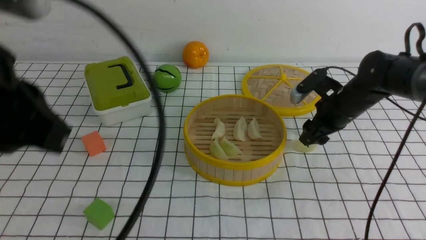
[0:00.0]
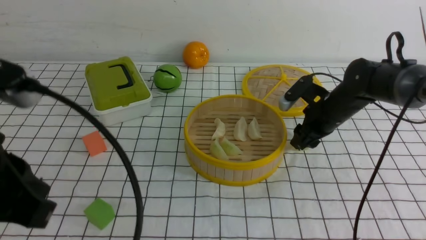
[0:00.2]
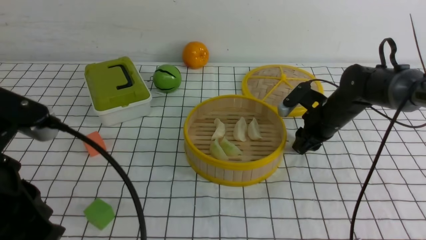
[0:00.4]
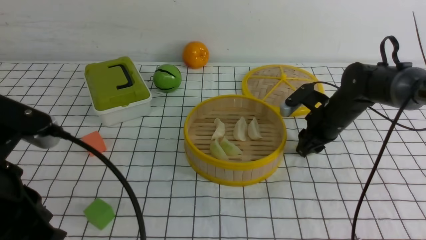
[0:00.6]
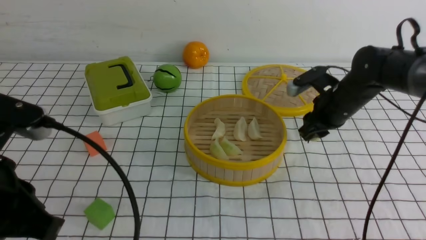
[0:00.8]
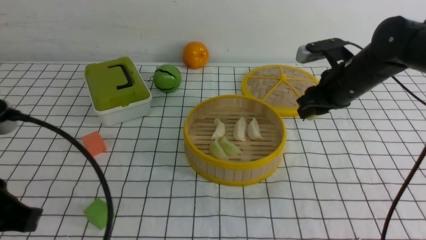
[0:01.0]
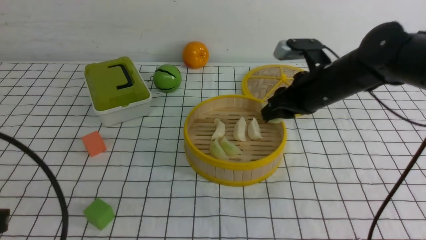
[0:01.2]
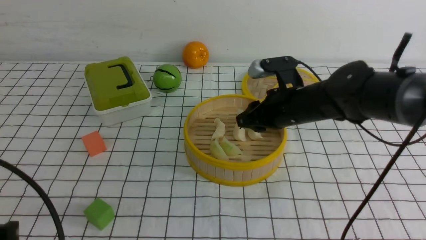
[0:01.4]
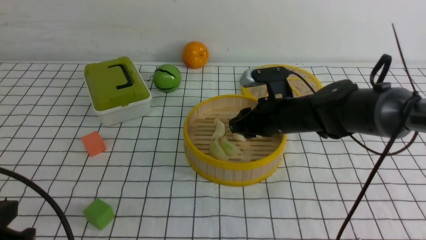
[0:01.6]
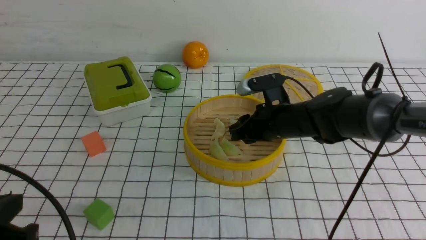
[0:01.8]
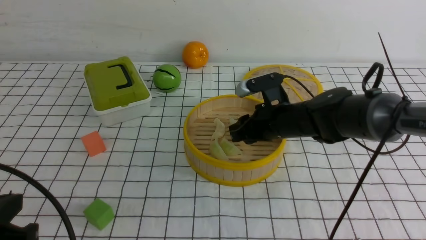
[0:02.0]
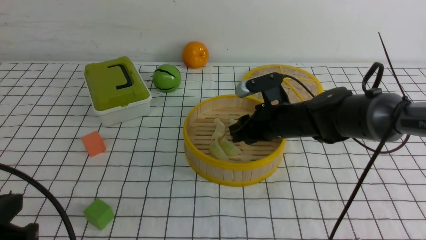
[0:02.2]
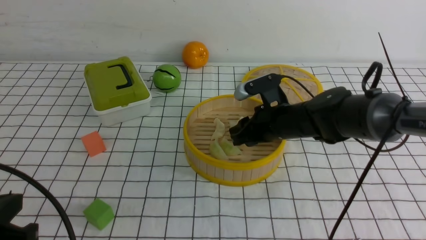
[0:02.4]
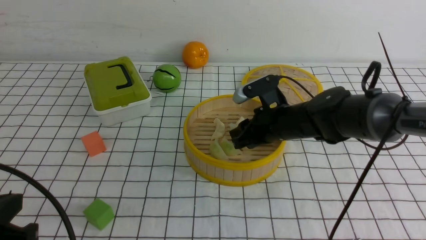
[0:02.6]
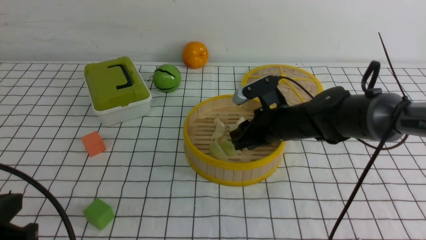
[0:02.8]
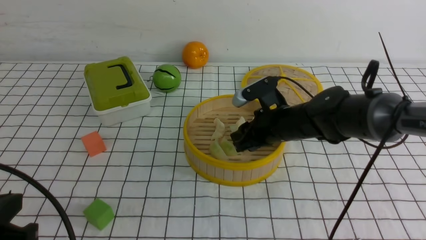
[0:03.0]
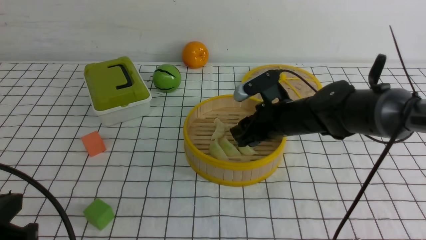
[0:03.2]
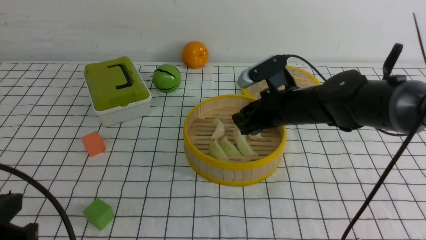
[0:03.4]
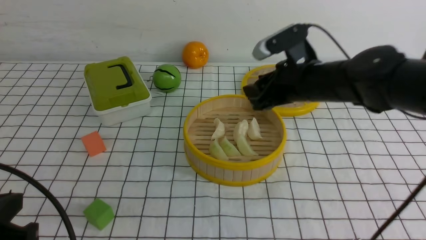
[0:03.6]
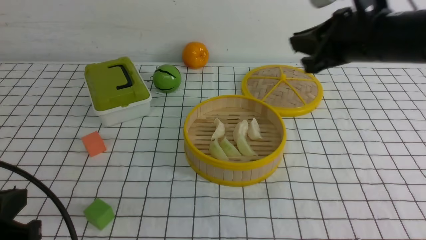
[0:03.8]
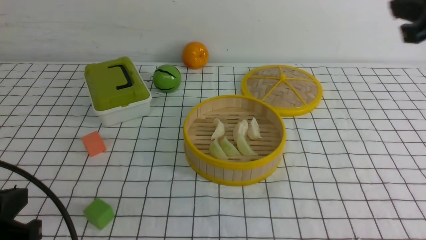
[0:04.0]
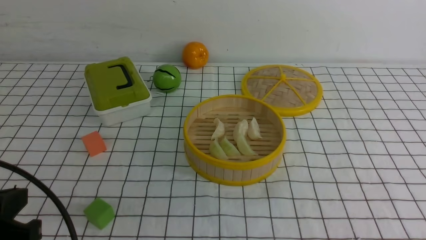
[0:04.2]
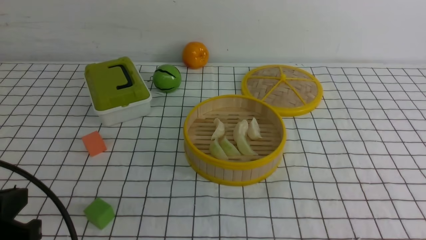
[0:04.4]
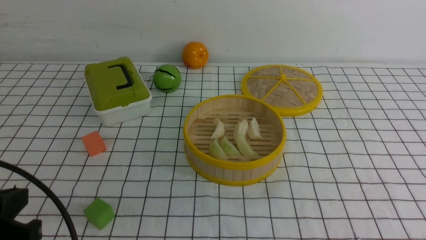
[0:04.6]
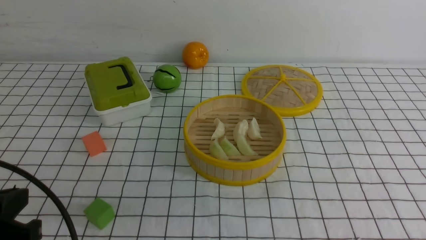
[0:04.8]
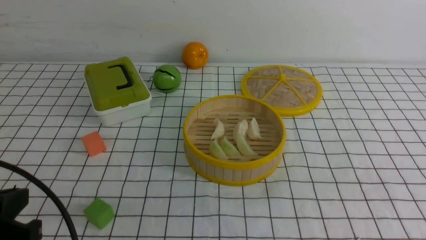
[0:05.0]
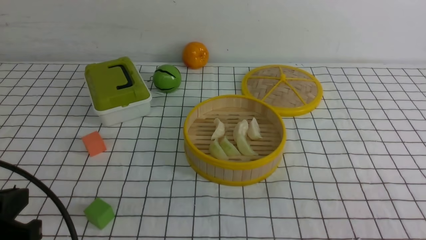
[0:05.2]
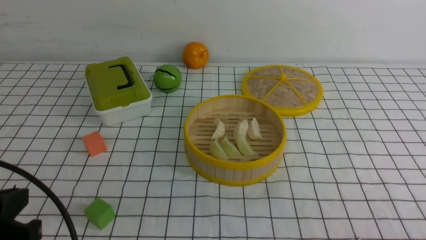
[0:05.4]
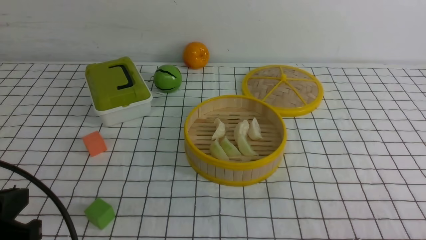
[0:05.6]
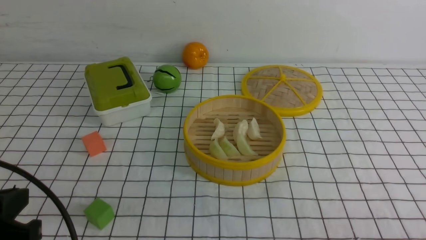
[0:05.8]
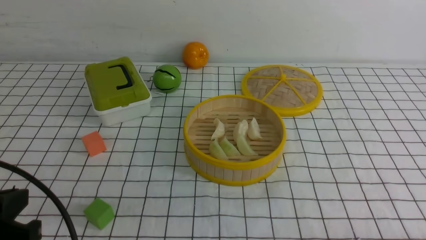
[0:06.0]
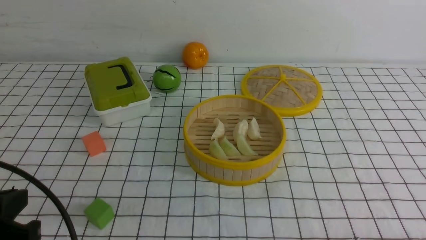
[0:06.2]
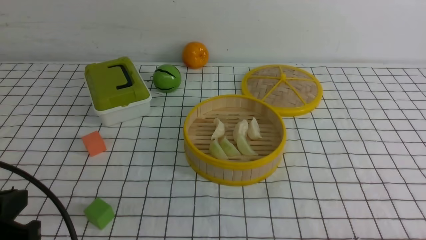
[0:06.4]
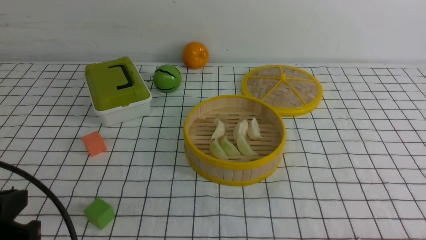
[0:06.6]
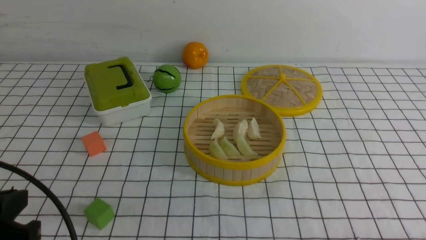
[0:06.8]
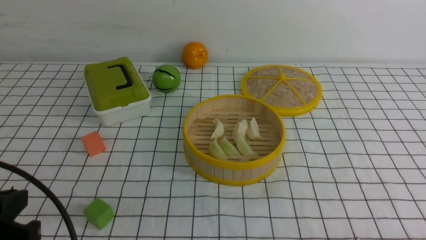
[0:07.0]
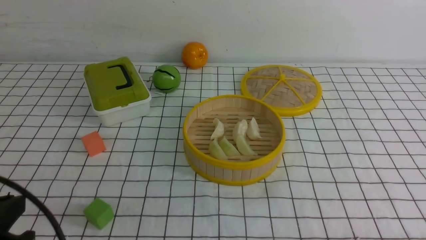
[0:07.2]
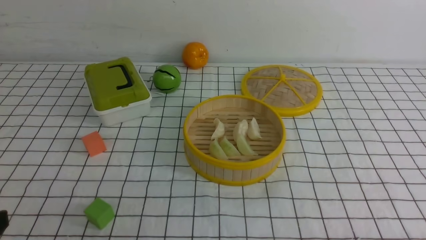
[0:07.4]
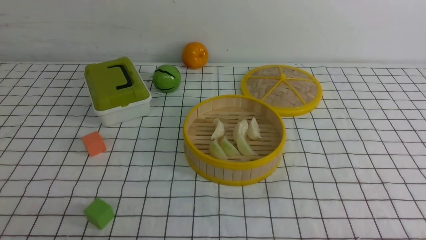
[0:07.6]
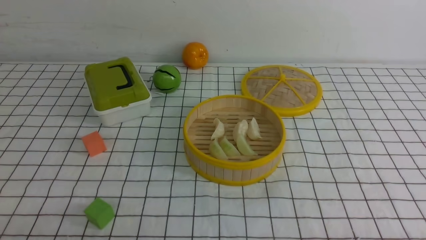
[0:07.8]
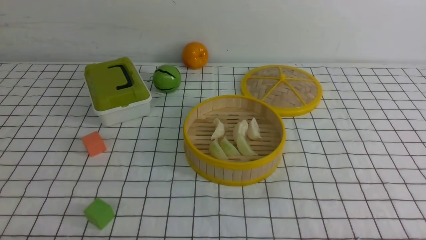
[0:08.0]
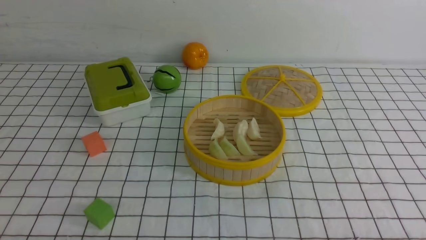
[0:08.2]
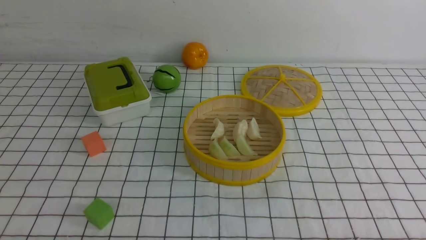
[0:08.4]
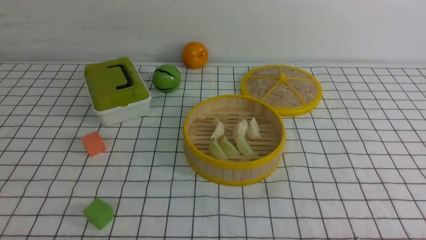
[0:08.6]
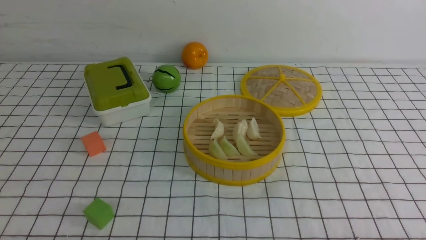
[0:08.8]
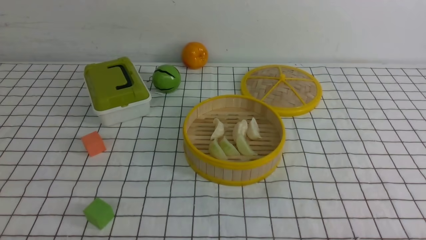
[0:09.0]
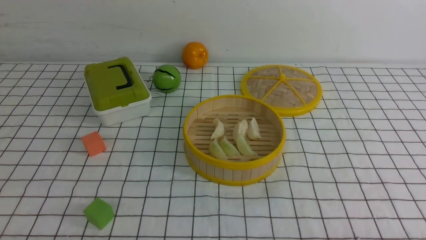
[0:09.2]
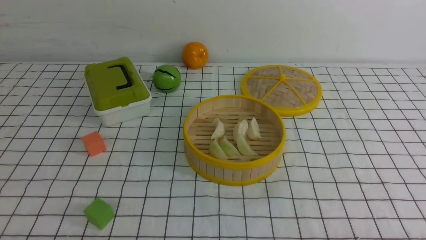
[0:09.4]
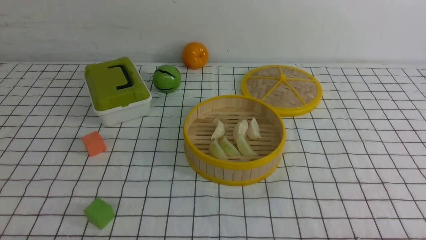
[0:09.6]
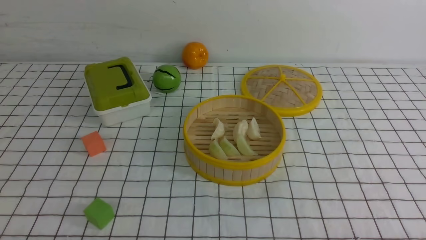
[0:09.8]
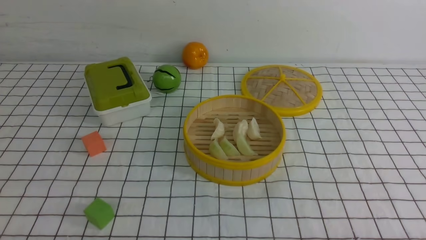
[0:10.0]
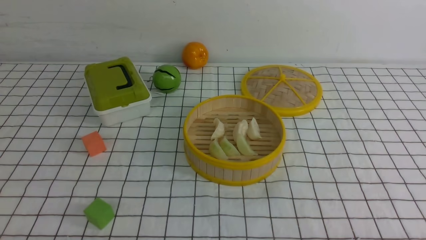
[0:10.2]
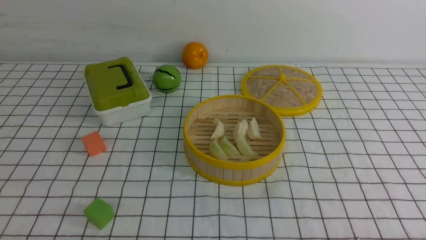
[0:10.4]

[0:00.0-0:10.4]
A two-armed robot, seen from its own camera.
Task of the whole recording: put the dumplings into the steamer on the table with the white tablecloth.
Step, 0:00.8 to 0:03.4: use the right arm to put the dumpling into the steamer.
0:00.0 to 0:01.4: The left gripper goes roughly 15 cm downward, to the left and backward. Meanwhile the right gripper shifts approximately 10 cm to the left, and closes its fingers.
0:01.4 to 0:03.0: There are only small adjustments of the grippers.
0:03.0 to 0:04.4: The right gripper travels upward, to the right and backward by approximately 35 cm, and closes up.
0:06.0 to 0:07.4: The grippers make only small movements.
0:09.0 to 0:10.4: Both grippers stay about where they are.

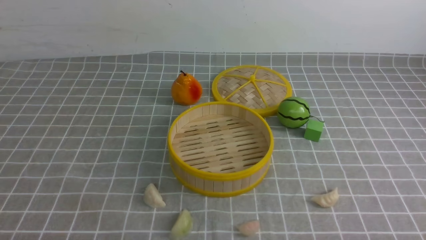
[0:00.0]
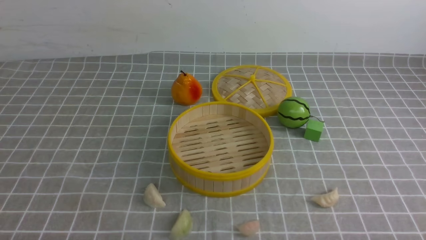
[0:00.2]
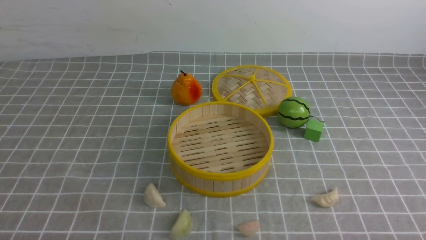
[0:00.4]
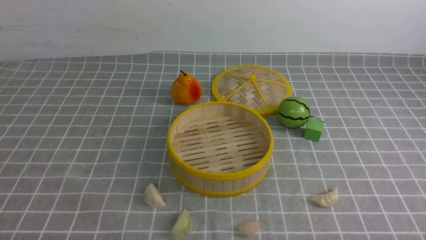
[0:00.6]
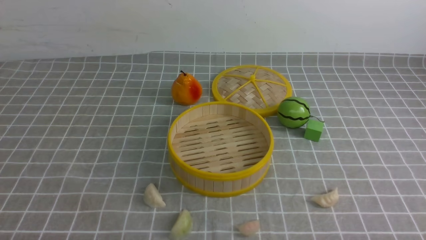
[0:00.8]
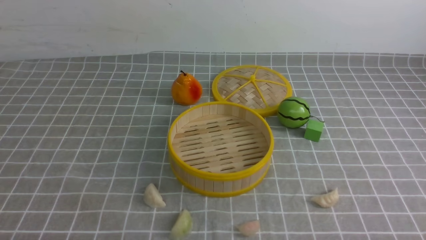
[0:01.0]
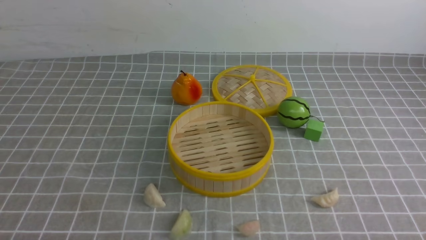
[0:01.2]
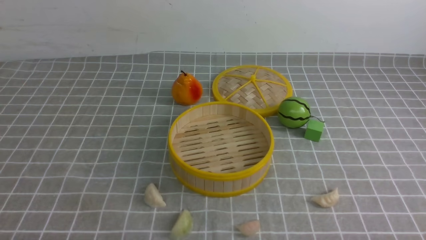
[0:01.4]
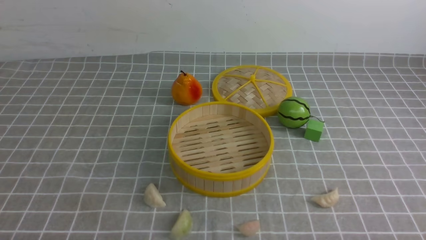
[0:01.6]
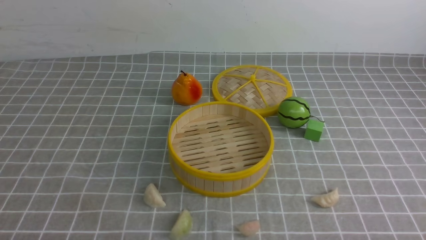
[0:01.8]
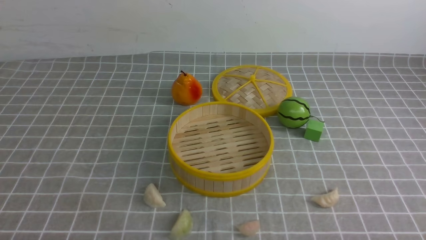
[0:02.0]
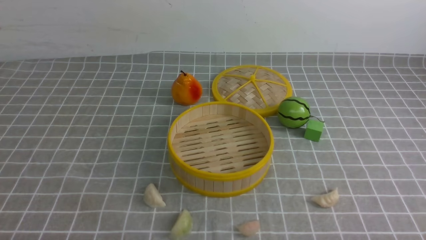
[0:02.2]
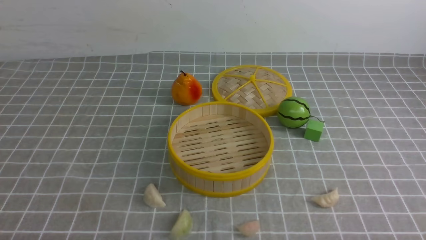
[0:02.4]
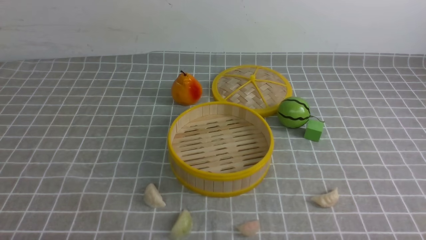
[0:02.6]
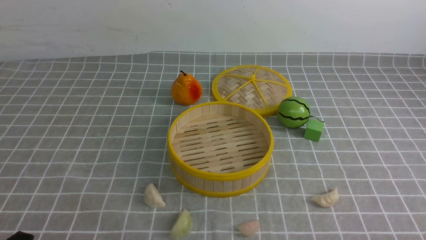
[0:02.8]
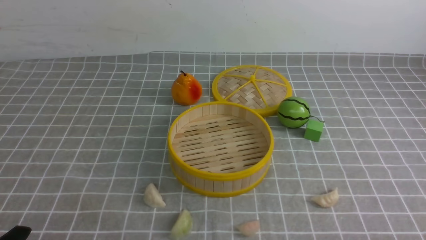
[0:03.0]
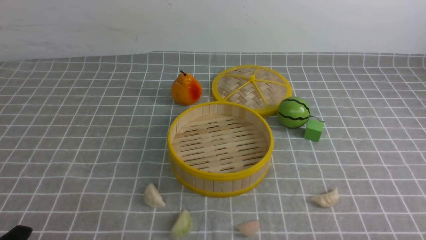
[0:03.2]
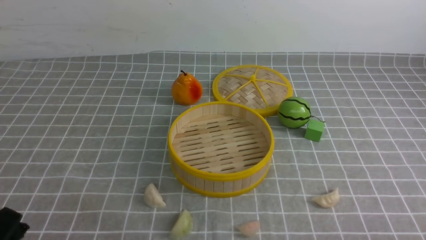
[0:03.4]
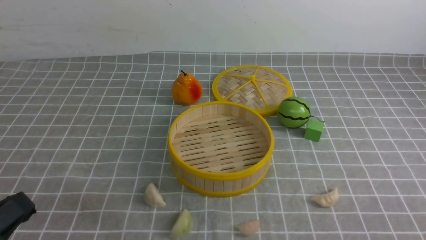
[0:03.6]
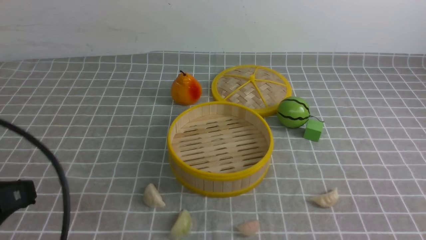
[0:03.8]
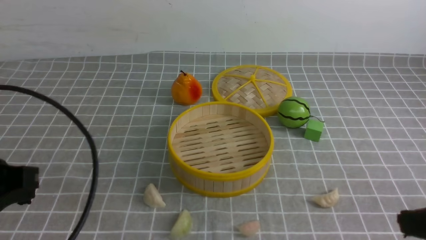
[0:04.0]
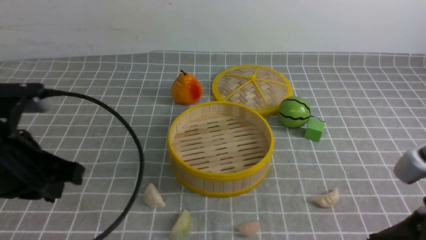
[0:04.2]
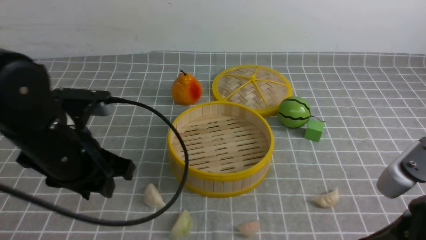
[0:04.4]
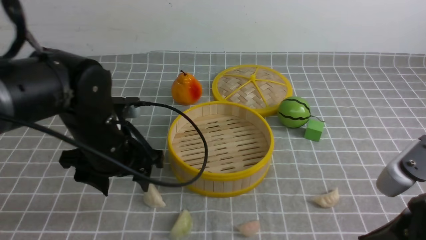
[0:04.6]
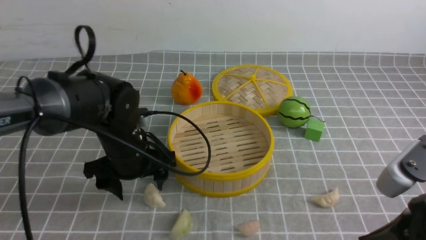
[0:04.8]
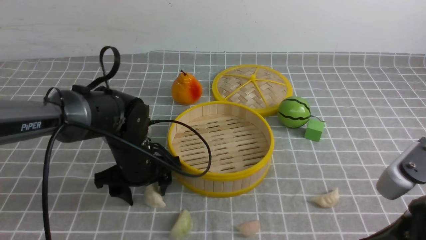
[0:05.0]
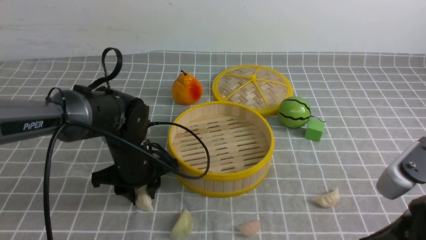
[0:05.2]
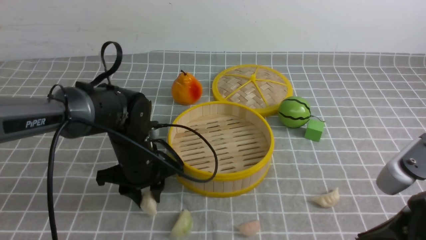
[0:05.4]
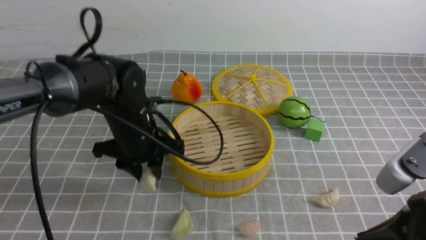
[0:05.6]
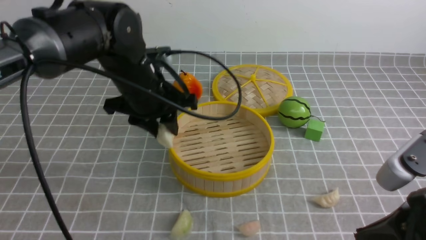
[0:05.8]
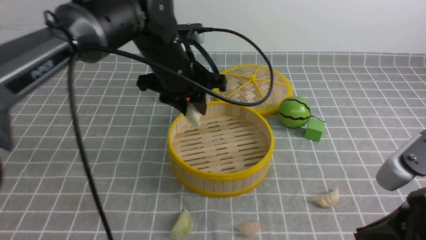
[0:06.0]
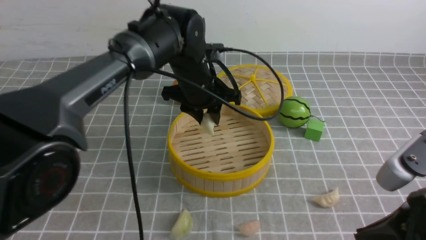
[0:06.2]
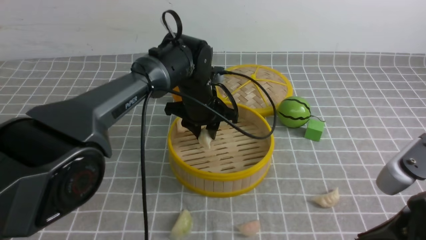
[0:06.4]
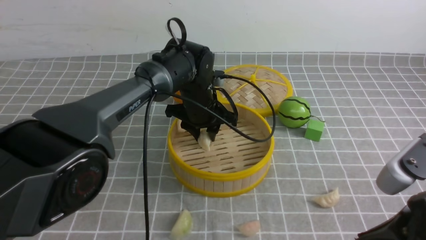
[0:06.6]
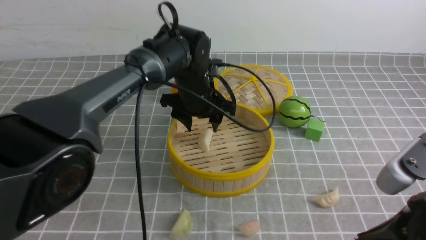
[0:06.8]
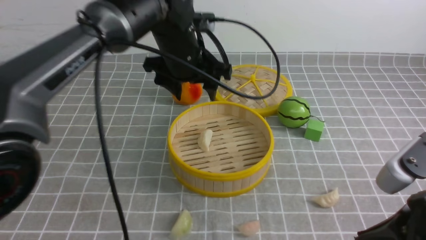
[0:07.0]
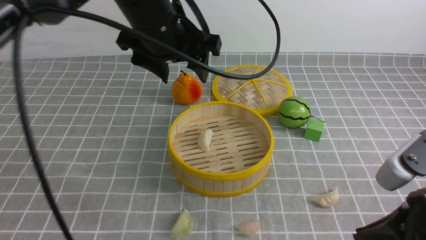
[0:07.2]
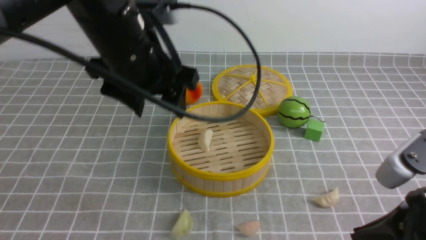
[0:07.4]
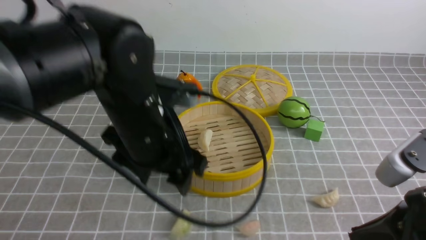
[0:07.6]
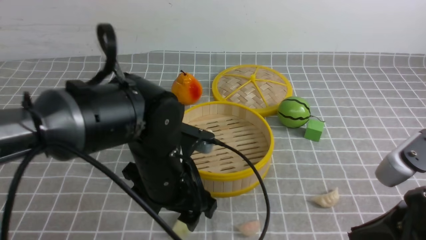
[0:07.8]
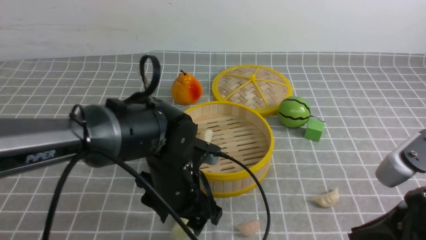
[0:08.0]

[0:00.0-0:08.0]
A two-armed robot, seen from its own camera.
Task of the whole recording: put the dumplings into the steamer on the table with the grey tablecloth.
Step, 0:00.0 to 0:05.4: use the left arm to grab a dumpling.
Step, 0:05.8 to 0:06.8: use the left arm to put the dumpling into the steamer.
0:00.0 to 0:01.6: Neither gripper changes place.
0:03.2 to 0:04.8: The left gripper is displaced forward and to the right by roughly 30 cm, and opens up, while the right gripper heads upward, forward and to the left, covering approximately 15 cm, and closes.
0:04.8 to 0:06.4: The left gripper shifts some 15 cm forward and to the right, goes upward and returns, roughly 10 cm each way, and closes up.
0:06.4 to 0:08.0: The left gripper shifts about 15 cm backward, goes upward and returns, about 15 cm each way, and opens.
